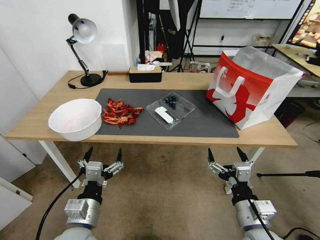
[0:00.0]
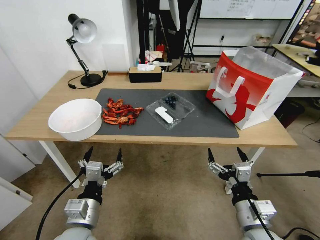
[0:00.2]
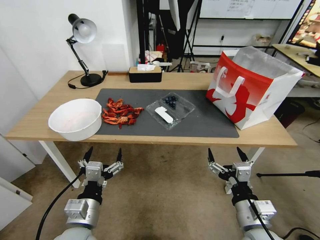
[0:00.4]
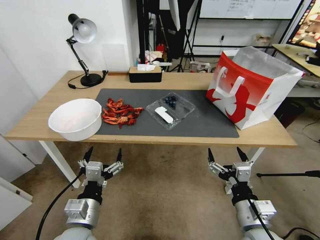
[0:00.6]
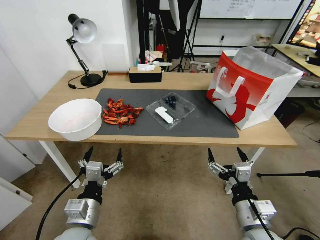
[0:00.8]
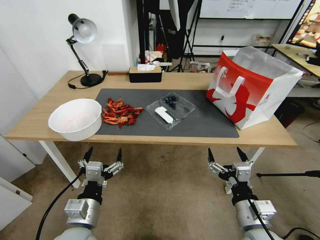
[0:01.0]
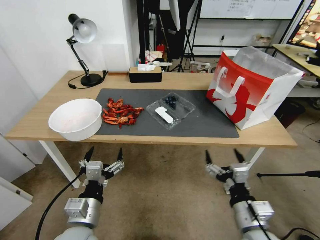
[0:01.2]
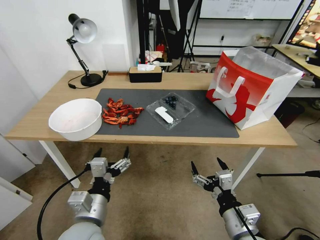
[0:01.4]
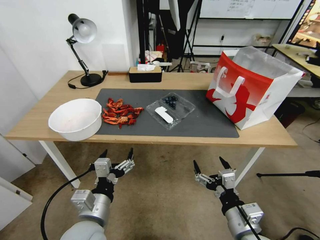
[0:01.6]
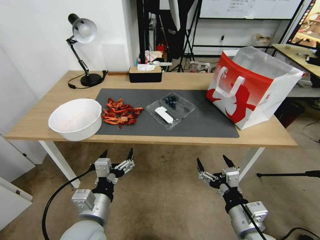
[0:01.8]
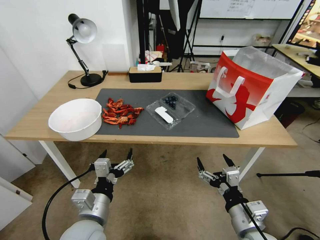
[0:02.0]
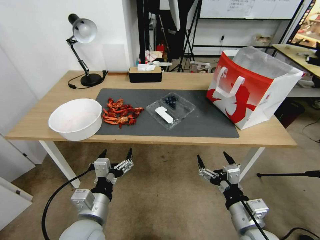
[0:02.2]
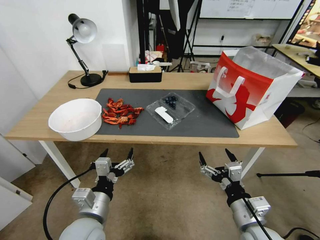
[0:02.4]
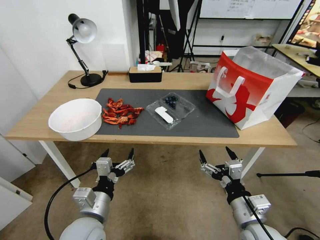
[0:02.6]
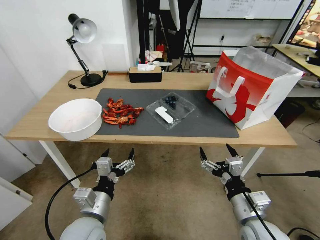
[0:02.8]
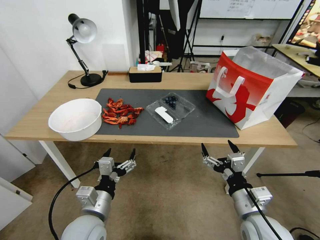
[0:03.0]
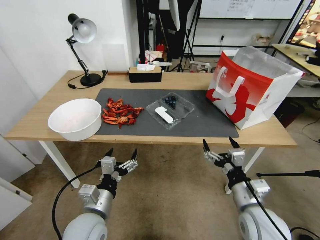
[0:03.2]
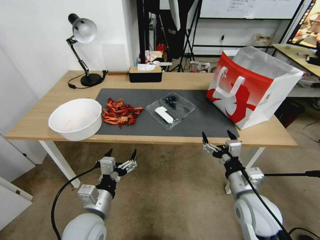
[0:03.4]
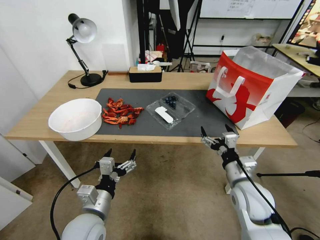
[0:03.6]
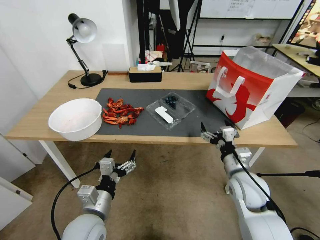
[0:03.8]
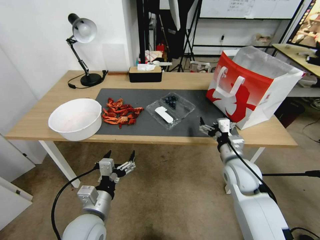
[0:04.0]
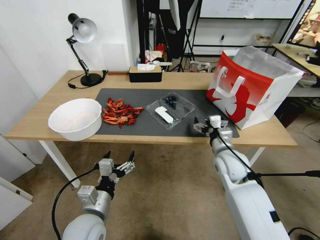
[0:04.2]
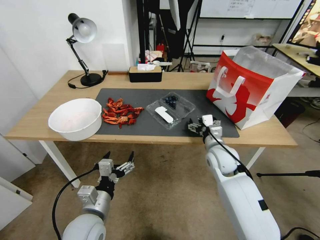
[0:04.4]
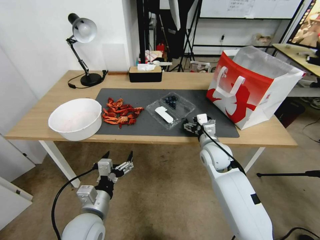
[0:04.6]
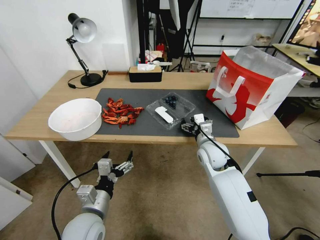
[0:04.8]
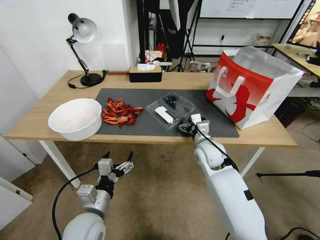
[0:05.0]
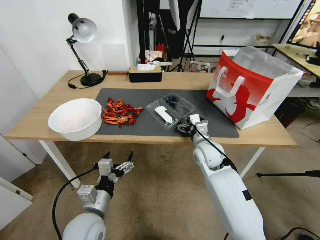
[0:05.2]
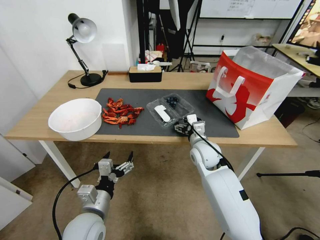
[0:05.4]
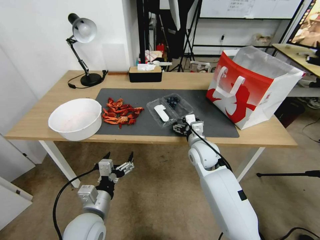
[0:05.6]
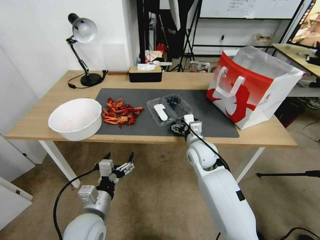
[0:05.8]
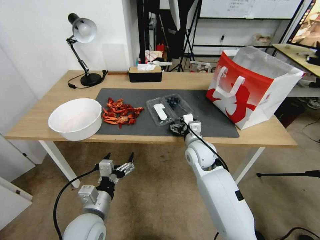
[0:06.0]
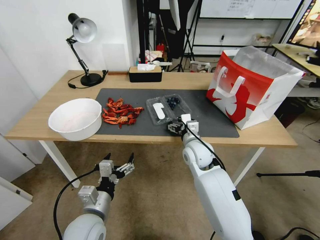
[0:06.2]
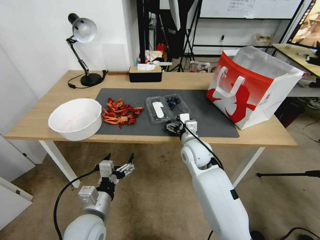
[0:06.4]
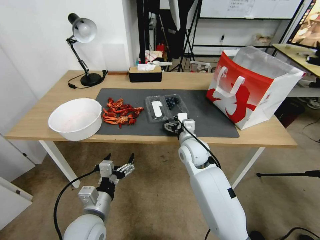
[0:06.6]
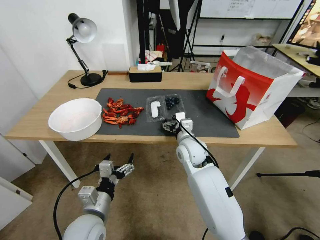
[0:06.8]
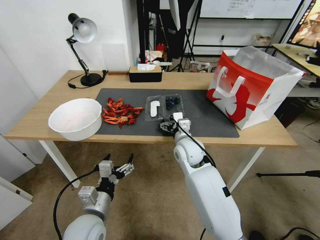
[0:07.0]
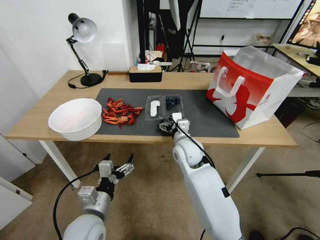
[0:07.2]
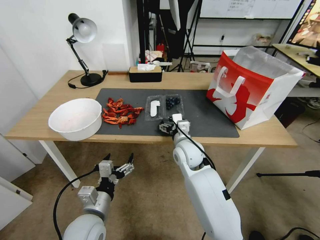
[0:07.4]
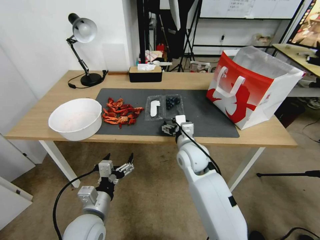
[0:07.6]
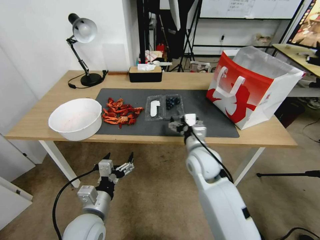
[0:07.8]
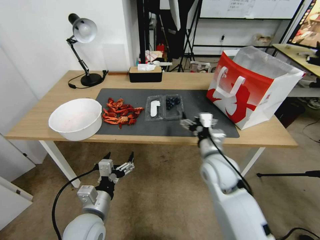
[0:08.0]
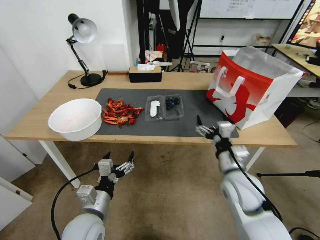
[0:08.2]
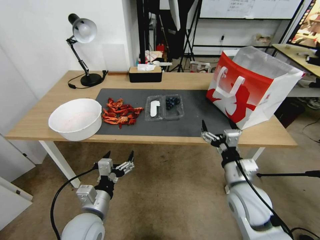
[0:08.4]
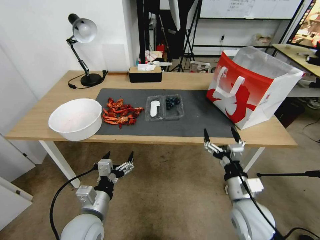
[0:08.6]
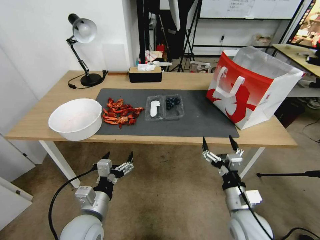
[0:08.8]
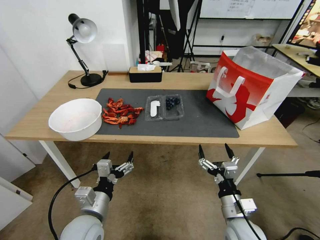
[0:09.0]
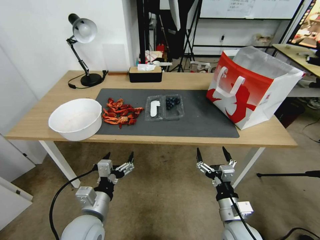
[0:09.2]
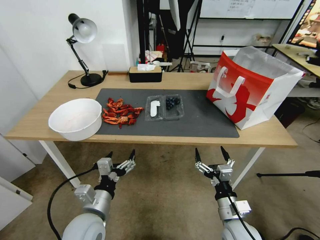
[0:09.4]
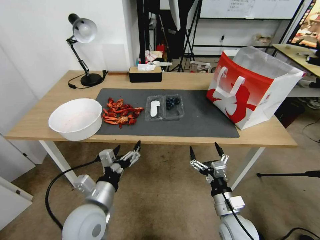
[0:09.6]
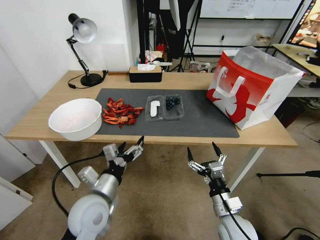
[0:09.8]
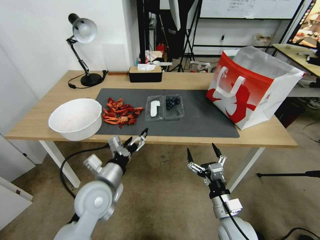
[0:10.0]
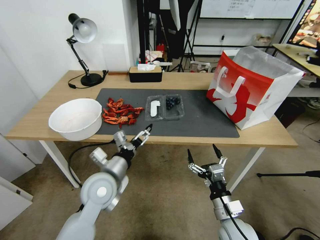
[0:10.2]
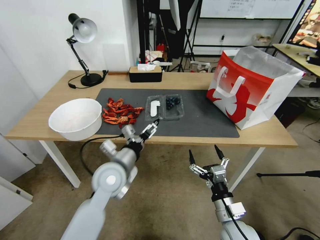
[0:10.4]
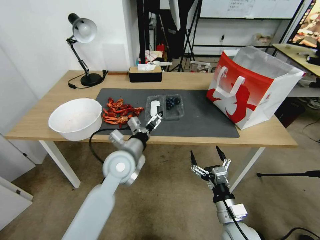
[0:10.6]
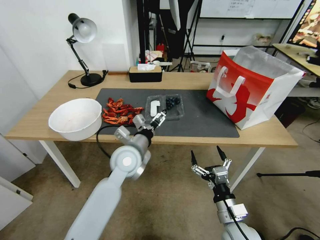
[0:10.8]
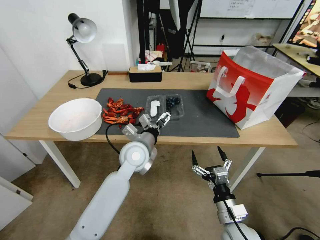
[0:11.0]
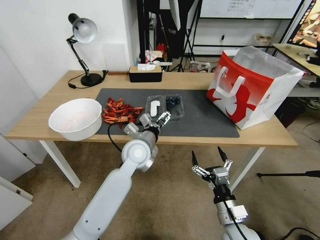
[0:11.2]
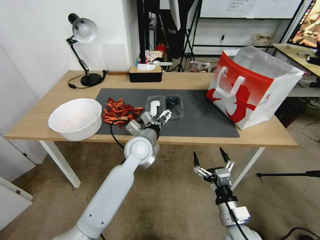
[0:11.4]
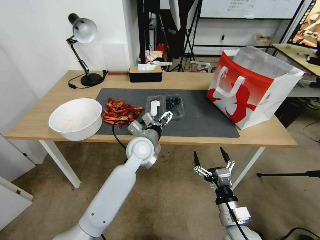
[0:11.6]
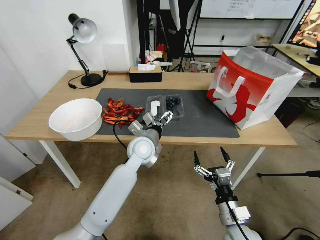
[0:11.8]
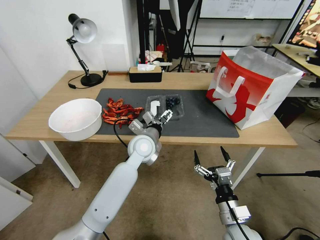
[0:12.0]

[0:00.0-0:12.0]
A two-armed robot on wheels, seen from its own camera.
Task of the whole recording: Close the takeout container lid, then place the container into the takeout bag.
0:01.6 to 0:03.0: The grippers stay close to where they were, moving slightly.
0:03.0 to 0:04.4: The right gripper moves forward, some 20 cm.
0:04.4 to 0:06.0: The right gripper moves to the left, roughly 5 cm.
0:06.0 to 0:07.6: The grippers move only a little.
0:07.6 to 0:09.0: The right gripper heads backward, to the right and downward, covering some 25 cm.
0:09.0 to 0:10.4: The left gripper goes some 15 cm forward, upward and to the right.
0:10.4 to 0:12.0: The left gripper heads forward and to the right, covering approximately 15 cm.

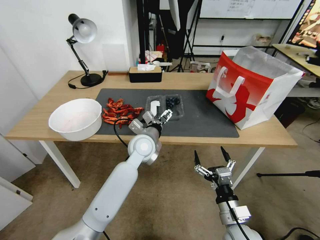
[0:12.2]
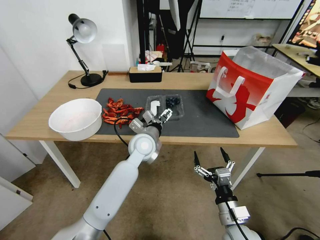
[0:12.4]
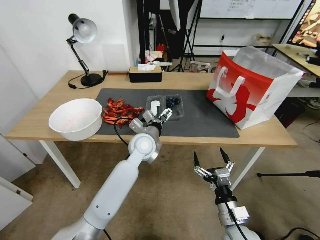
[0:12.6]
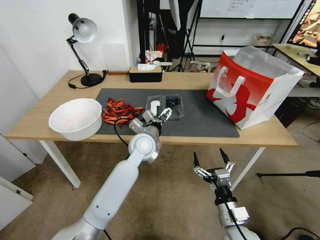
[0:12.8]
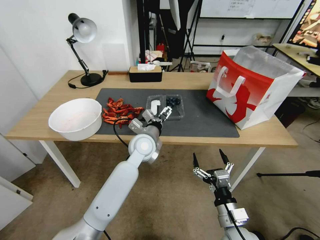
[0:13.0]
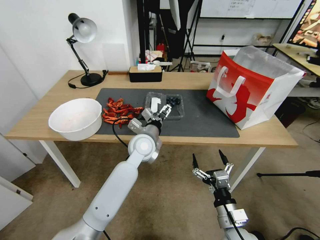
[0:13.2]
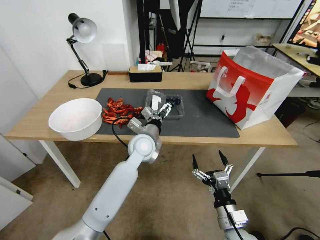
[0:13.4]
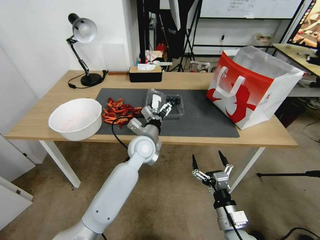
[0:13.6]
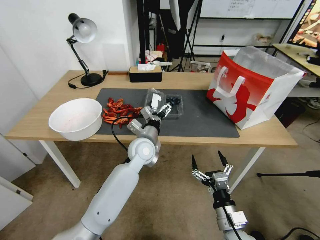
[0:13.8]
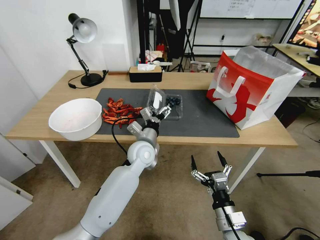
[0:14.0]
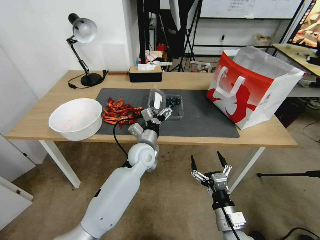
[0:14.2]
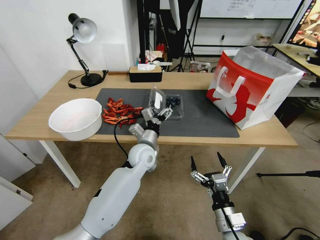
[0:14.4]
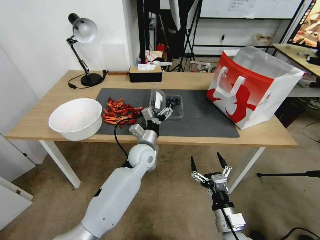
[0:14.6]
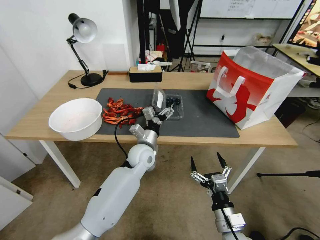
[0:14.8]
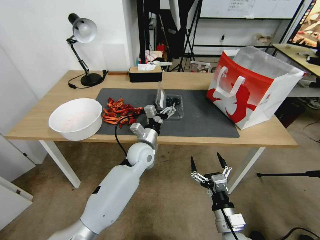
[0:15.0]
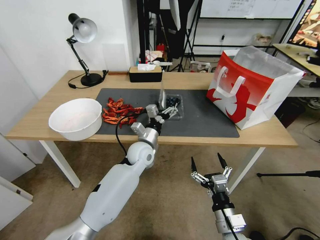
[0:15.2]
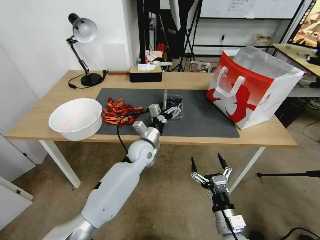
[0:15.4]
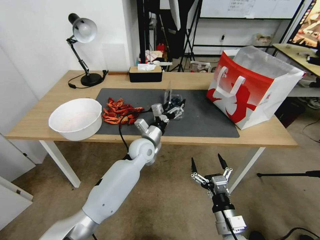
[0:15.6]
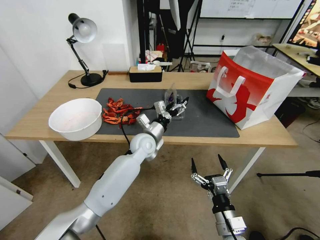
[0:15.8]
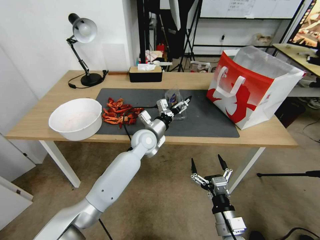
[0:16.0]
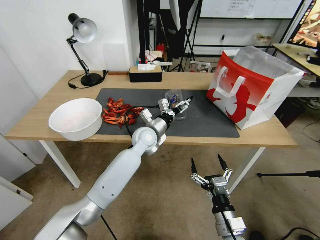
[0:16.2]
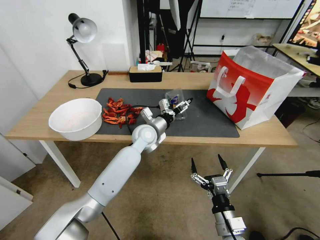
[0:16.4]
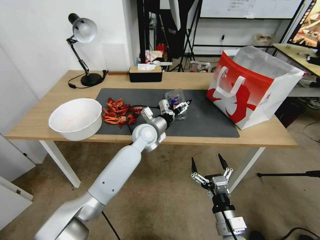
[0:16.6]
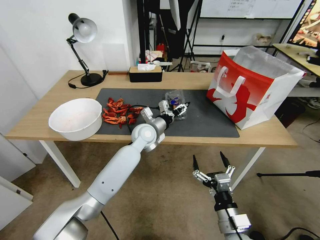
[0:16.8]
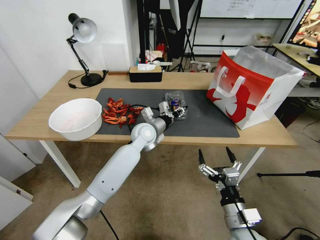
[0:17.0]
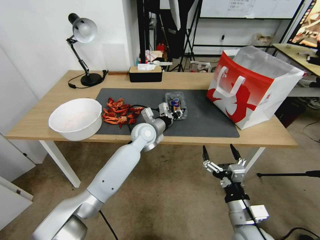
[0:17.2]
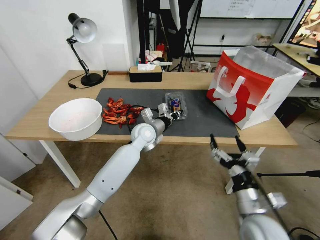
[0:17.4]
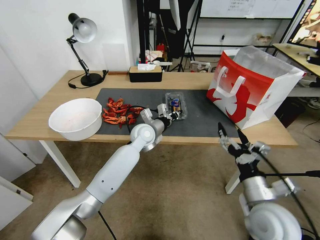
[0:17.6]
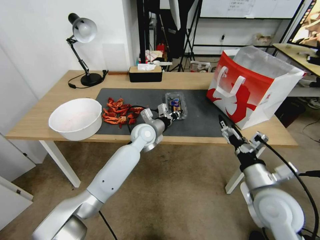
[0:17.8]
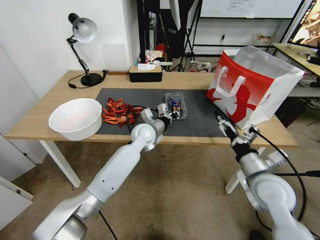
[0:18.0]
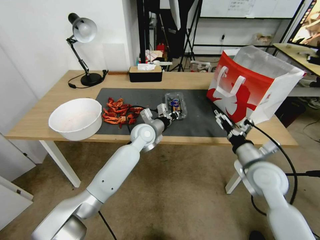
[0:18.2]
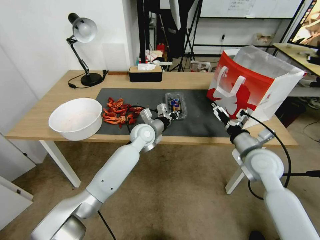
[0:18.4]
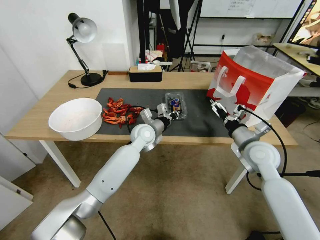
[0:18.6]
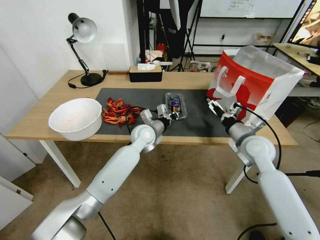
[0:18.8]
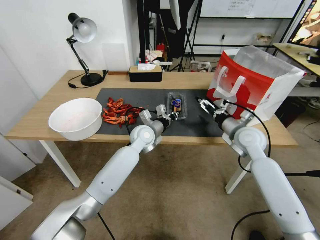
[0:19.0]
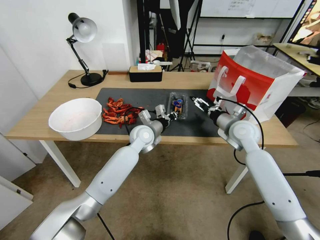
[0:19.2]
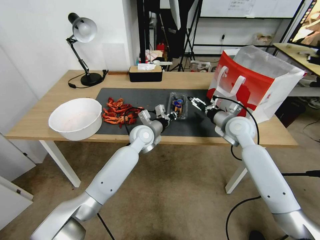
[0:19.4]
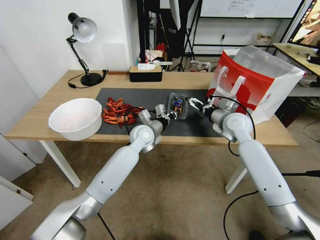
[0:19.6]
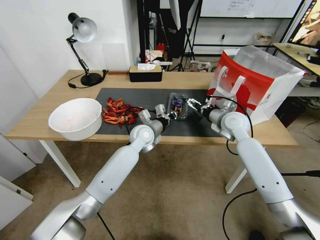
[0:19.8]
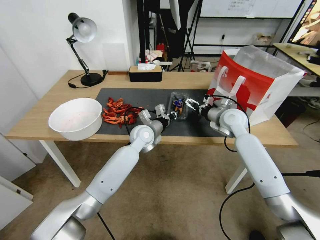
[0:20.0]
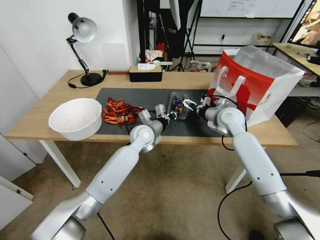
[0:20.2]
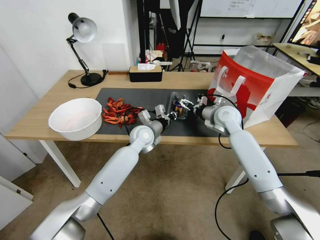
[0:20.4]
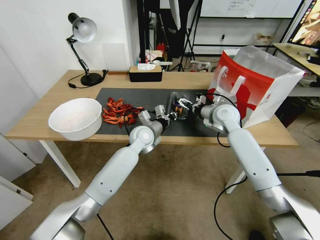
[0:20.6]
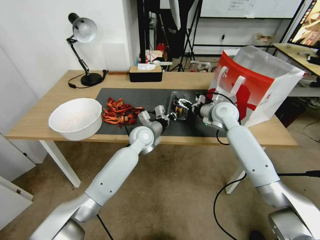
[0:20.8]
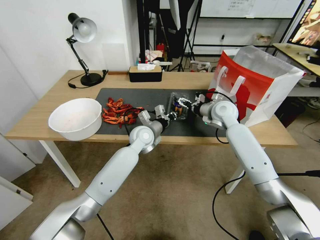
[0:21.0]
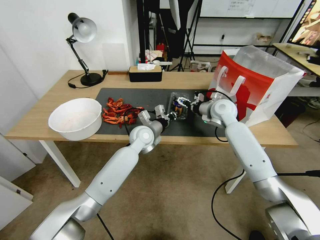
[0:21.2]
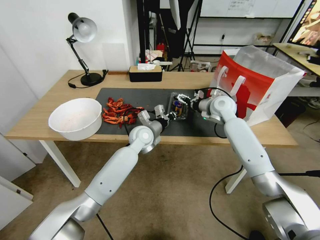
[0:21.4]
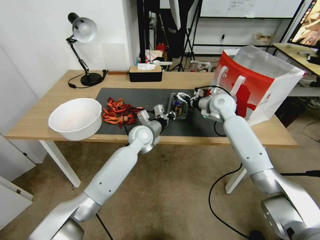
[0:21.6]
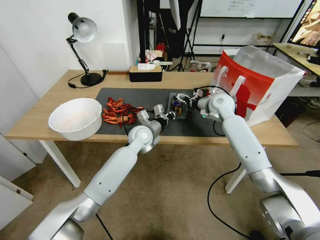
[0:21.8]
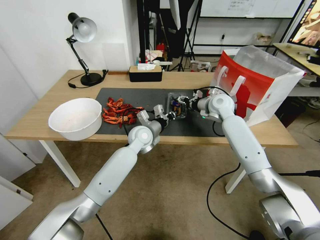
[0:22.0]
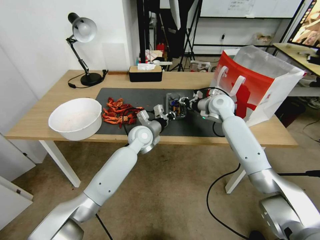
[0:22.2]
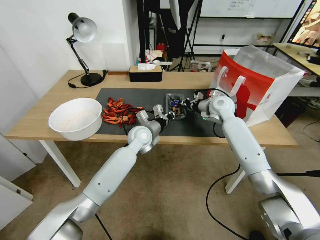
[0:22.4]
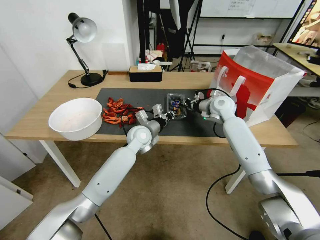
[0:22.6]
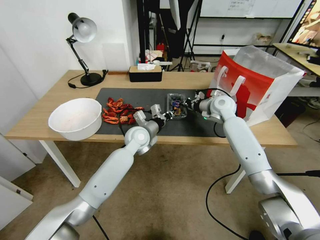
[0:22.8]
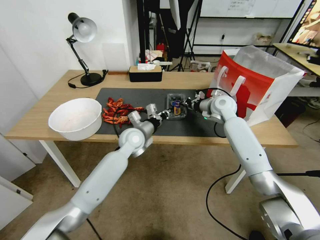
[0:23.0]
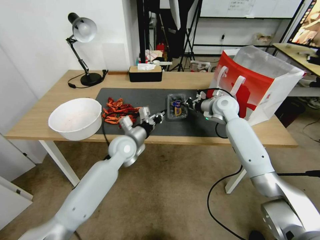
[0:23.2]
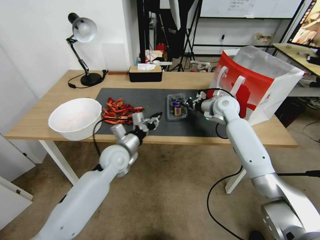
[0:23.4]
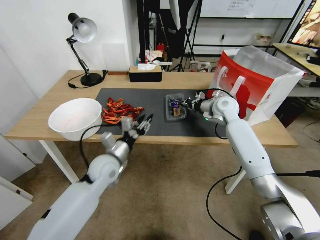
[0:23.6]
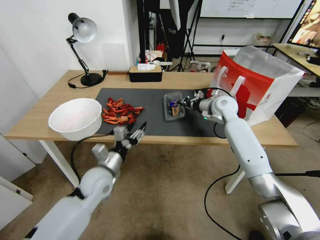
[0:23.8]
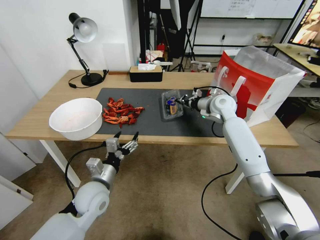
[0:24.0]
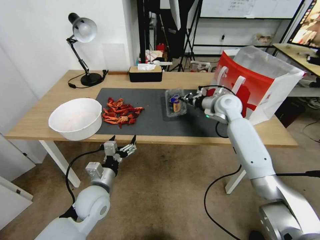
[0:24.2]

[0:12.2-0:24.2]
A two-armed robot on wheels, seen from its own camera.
Task of the whole recording: Close the takeout container lid, then place the container into the takeout bag.
0:12.2 to 0:13.8: The grippers stay close to where they were, moving slightly.
0:15.2 to 0:16.6: The left gripper shifts some 5 cm forward.
0:16.6 to 0:18.2: The left gripper closes. The right gripper is displaced forward, upward and to the right by some 25 cm.
0:18.2 to 0:19.8: The right gripper travels forward by some 20 cm.
0:19.8 to 0:21.2: The right gripper heads forward, covering roughly 5 cm.
0:21.2 to 0:22.6: The right gripper closes up.
0:22.6 to 0:24.2: The left gripper is displaced backward and to the left by about 25 cm, and opens up.
